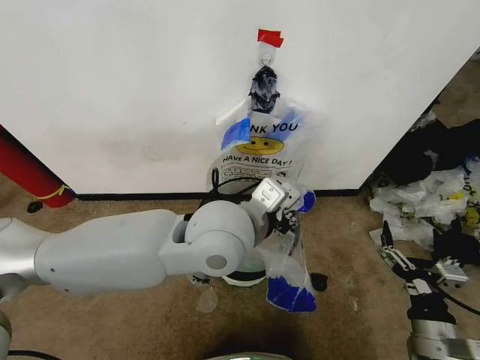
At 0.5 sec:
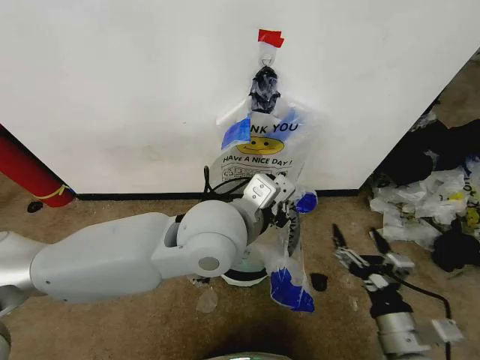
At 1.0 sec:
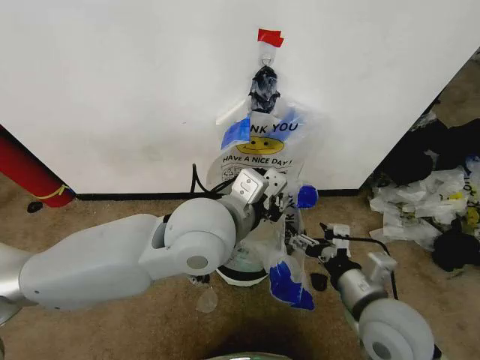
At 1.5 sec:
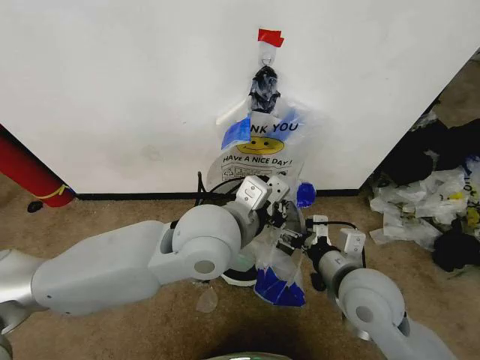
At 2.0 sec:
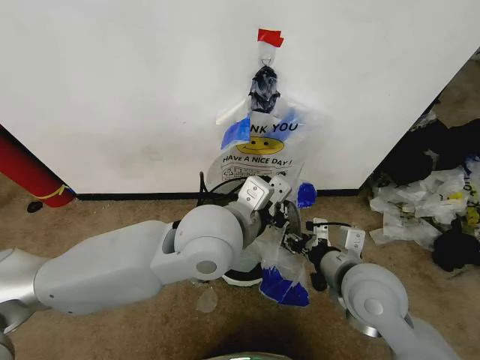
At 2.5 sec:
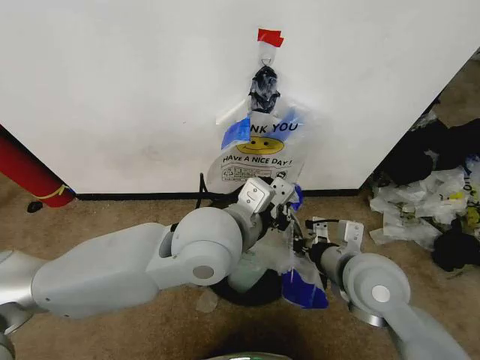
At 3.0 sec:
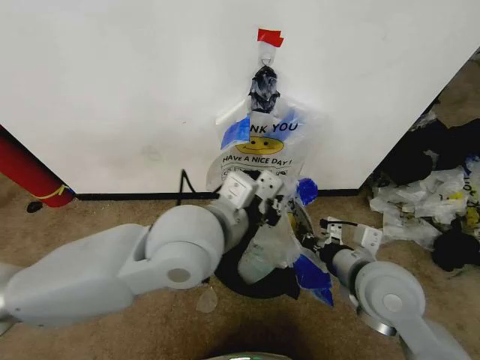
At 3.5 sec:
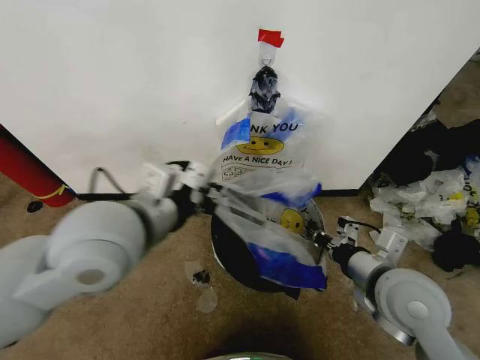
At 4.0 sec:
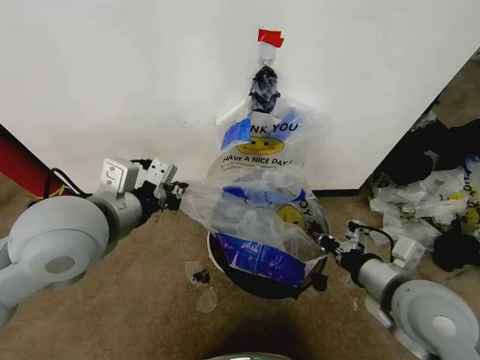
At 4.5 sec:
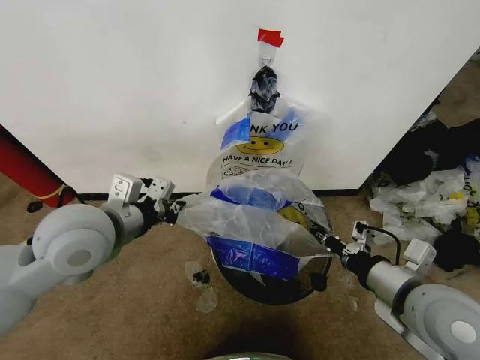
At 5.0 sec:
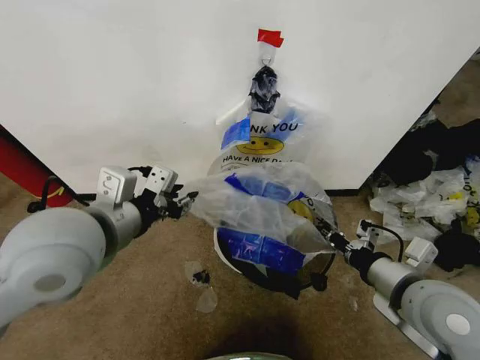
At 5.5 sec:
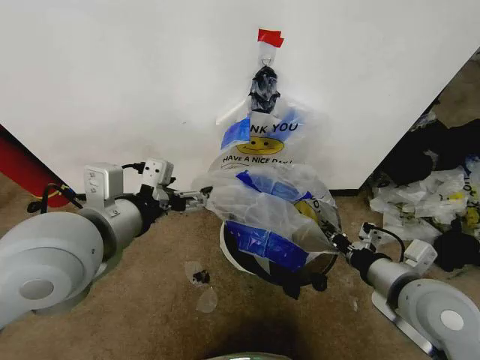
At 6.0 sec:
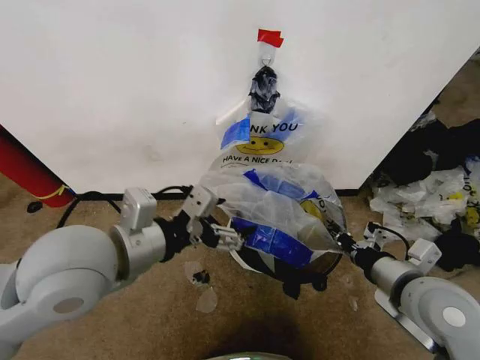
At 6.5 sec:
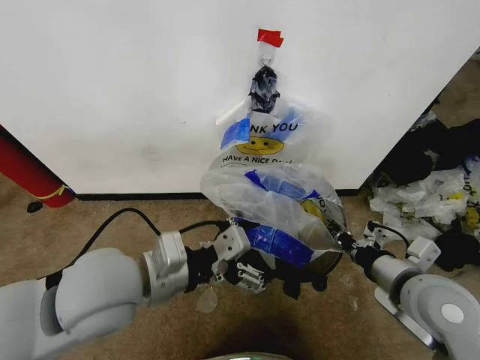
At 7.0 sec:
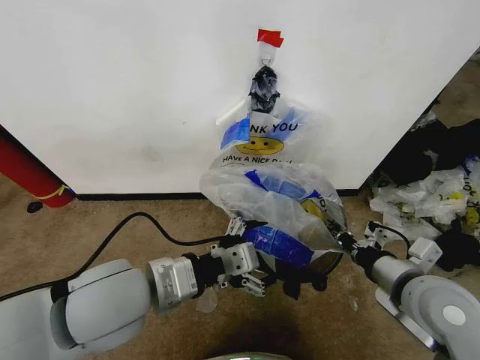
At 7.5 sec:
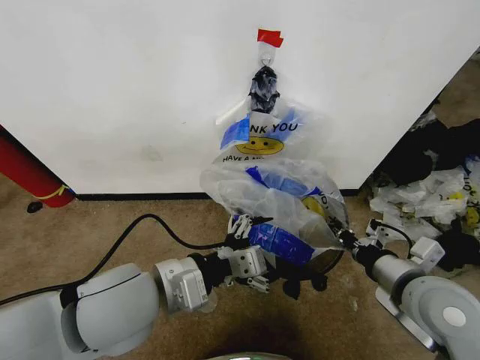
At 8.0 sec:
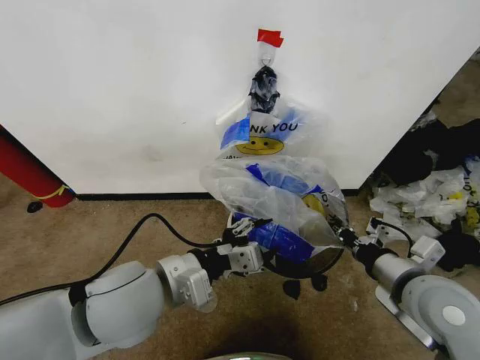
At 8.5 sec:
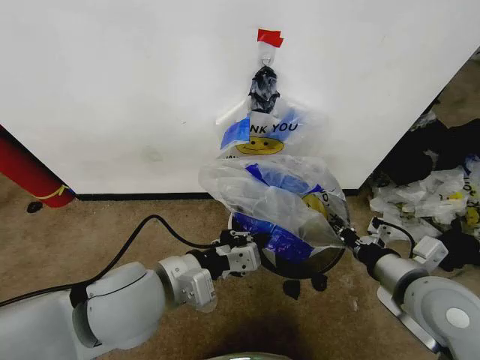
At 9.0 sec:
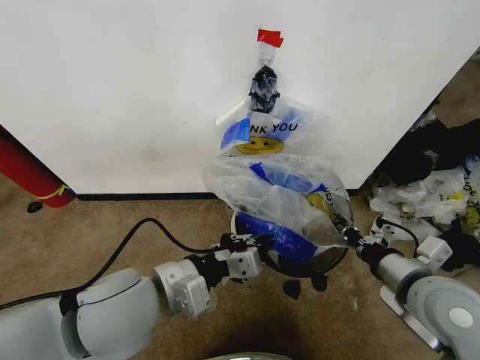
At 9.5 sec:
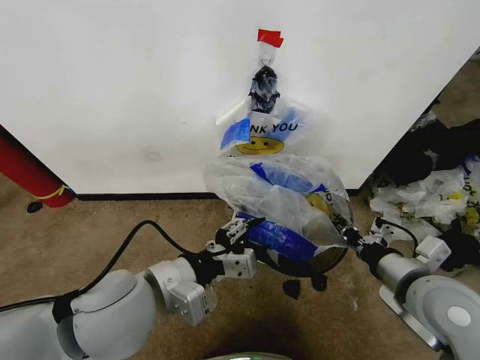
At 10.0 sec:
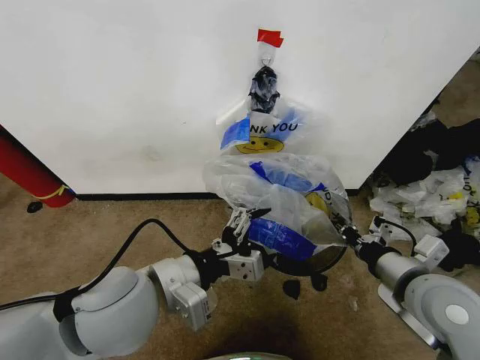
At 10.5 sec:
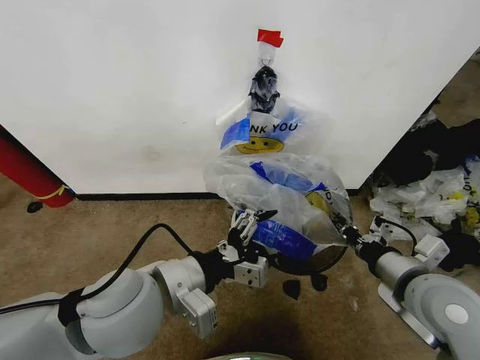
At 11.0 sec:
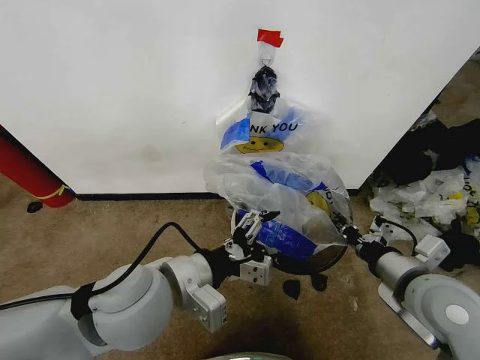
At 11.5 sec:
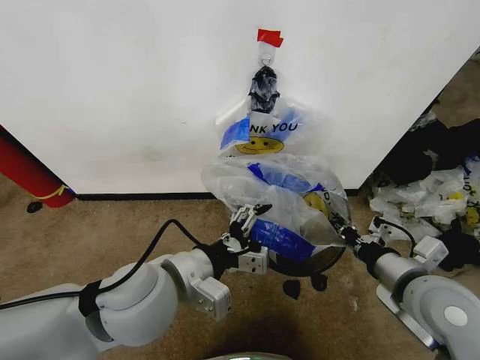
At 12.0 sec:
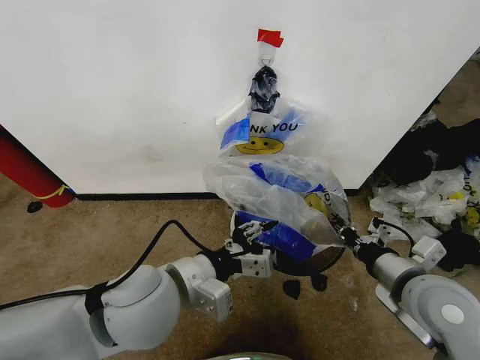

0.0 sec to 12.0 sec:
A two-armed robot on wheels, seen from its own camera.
Task of the whole recording: Pick up the garbage bag from the wall and place it over the trash bin.
0.0 sec to 2.0 sec: The right gripper goes about 20 cm forward, to the left and upward, and closes.
2.0 sec to 4.0 sec: The left gripper travels to the left by approximately 15 cm, while the right gripper travels to the right by approximately 5 cm, and closes up.
4.0 sec to 6.0 sec: The left gripper opens.
6.0 sec to 8.0 sec: The left gripper goes some 10 cm downward, and closes its fingers.
8.0 sec to 10.0 sec: The left gripper opens.
10.0 sec to 12.0 sec: The left gripper closes up.

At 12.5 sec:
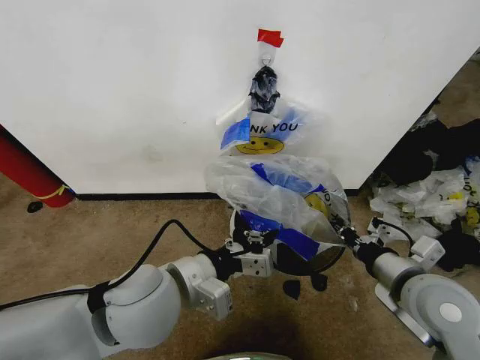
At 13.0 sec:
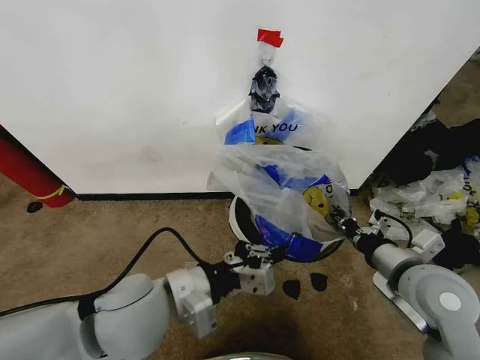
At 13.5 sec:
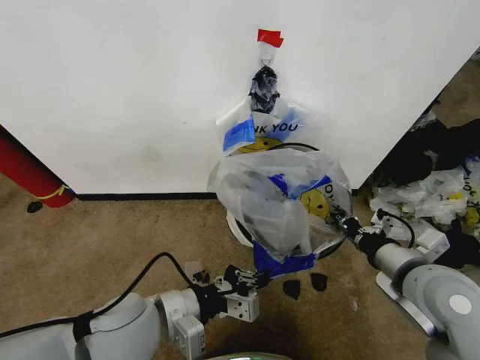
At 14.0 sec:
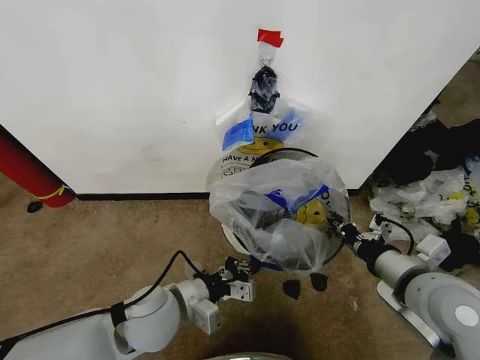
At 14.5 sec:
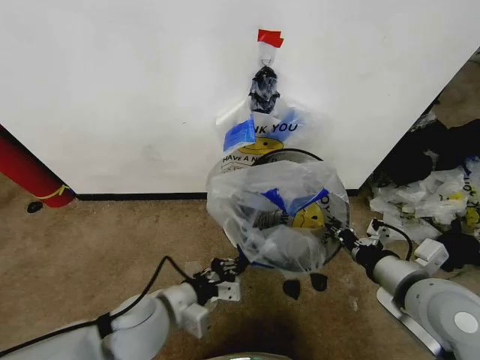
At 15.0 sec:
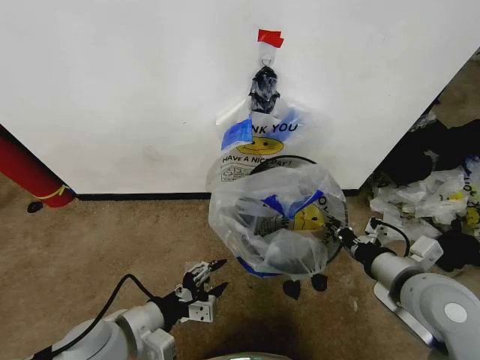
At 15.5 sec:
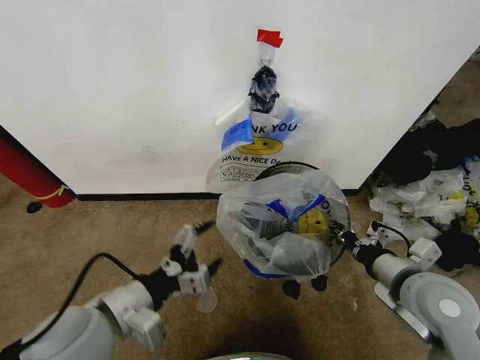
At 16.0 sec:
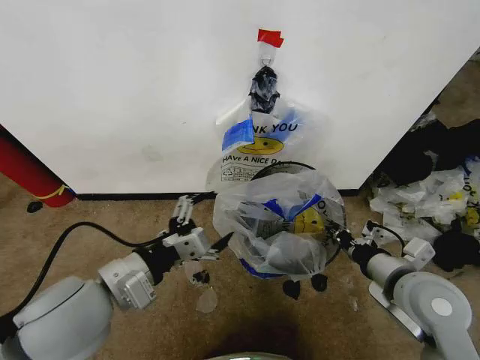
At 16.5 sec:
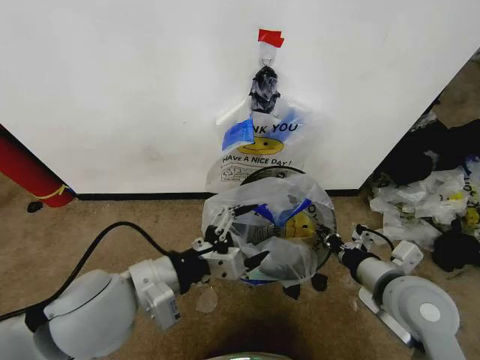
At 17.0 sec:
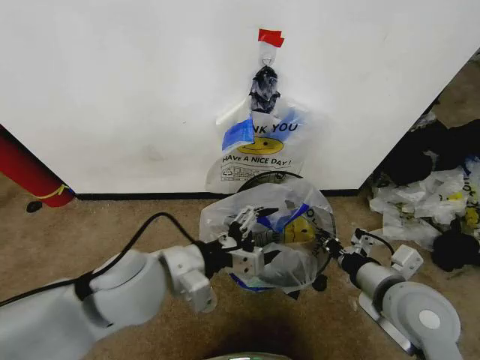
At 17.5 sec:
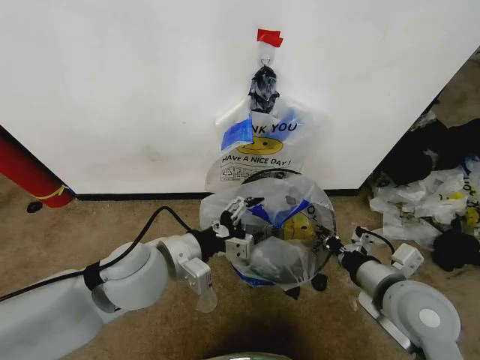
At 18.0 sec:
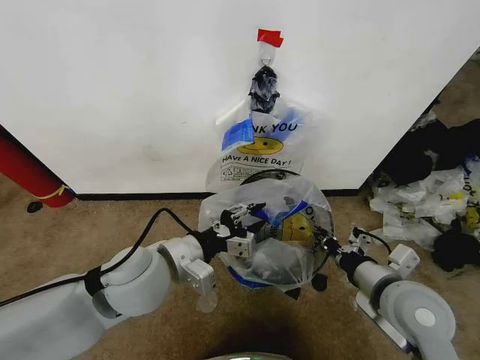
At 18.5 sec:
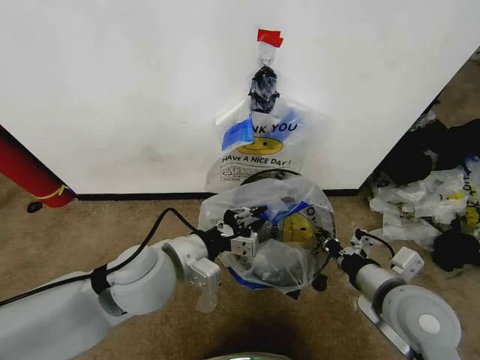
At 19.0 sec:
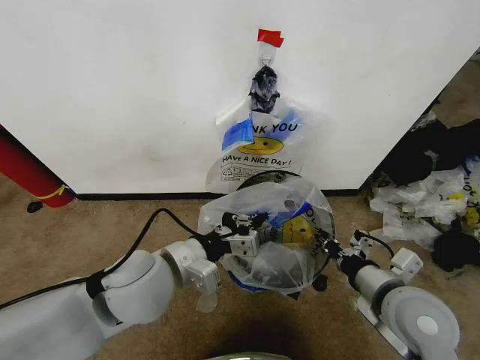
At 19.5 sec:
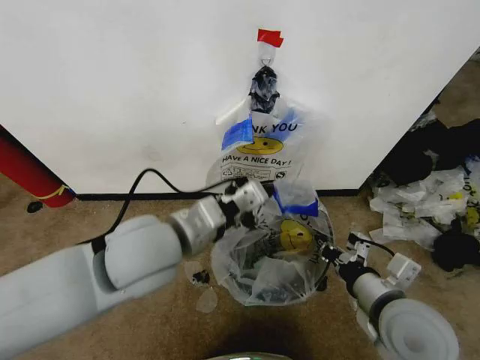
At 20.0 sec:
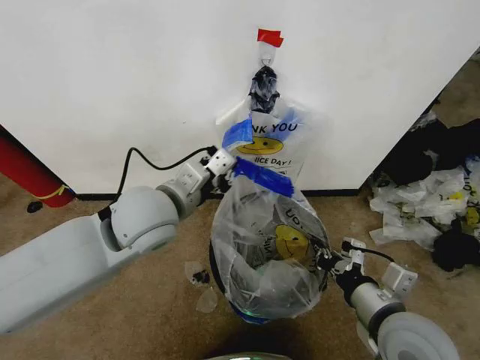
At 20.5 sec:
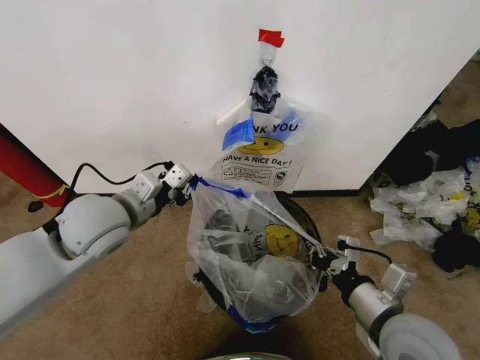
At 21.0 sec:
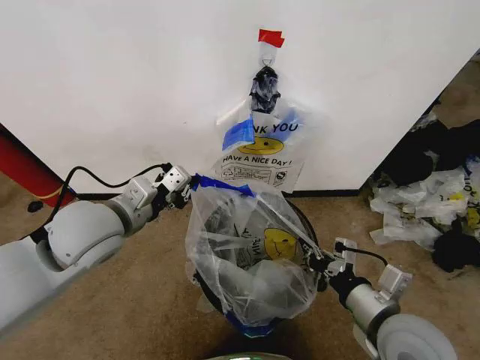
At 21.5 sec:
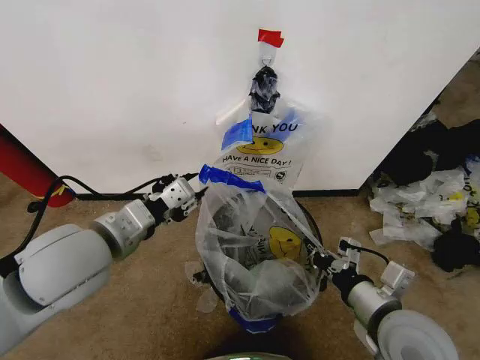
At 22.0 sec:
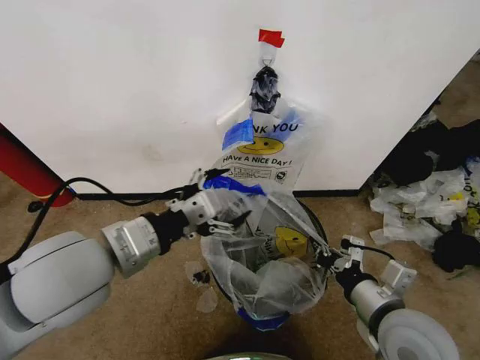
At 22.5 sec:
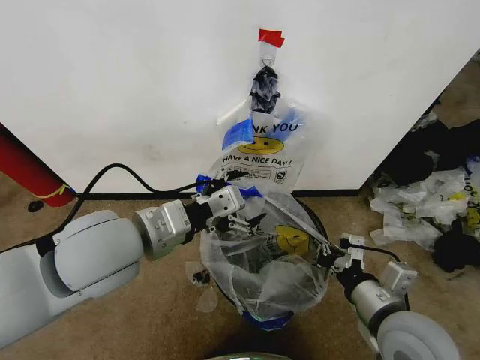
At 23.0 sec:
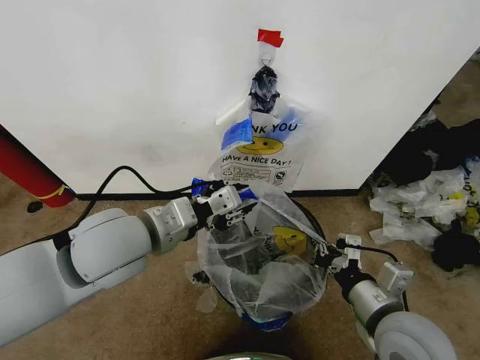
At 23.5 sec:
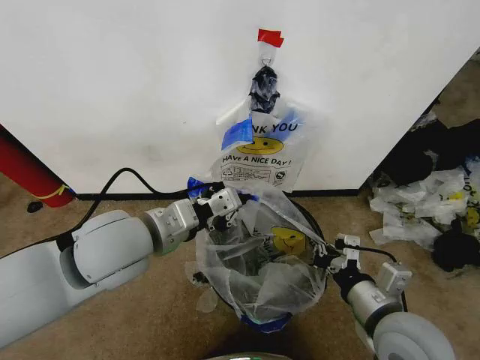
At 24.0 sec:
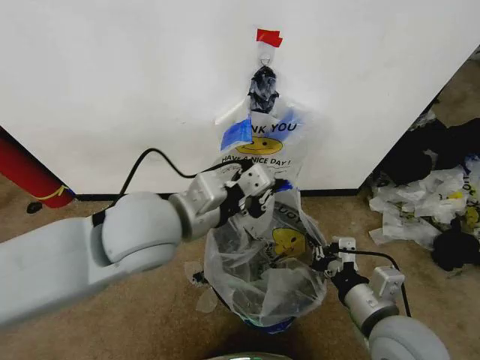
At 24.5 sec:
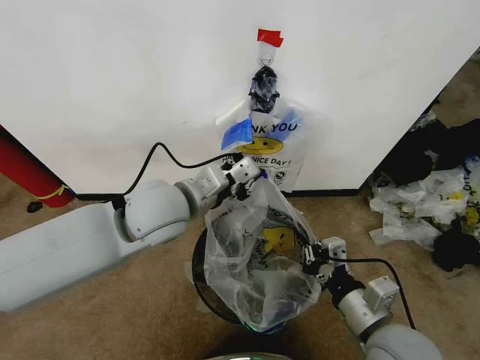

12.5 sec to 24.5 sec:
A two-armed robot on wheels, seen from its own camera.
Task of the whole recording: Pick up the garbage bag from the wall and place it over the trash bin.
12.5 sec to 14.5 sec: The left gripper goes roughly 10 cm downward.
14.5 sec to 16.5 sec: The left gripper goes approximately 10 cm upward, and opens its fingers.
16.5 sec to 18.5 sec: The left gripper shifts some 5 cm forward, and closes up.
18.5 sec to 20.5 sec: The left gripper is displaced to the left and forward by roughly 10 cm.
20.5 sec to 22.5 sec: The left gripper is displaced backward and to the right by some 10 cm, and opens.
22.5 sec to 24.5 sec: The left gripper shifts roughly 10 cm forward, and closes.

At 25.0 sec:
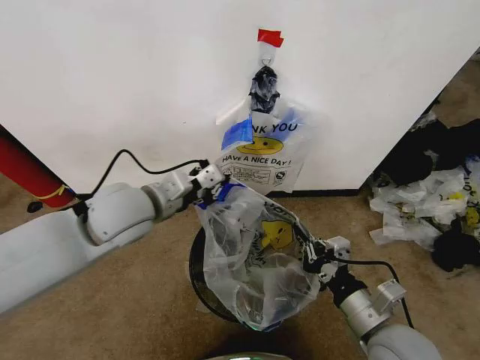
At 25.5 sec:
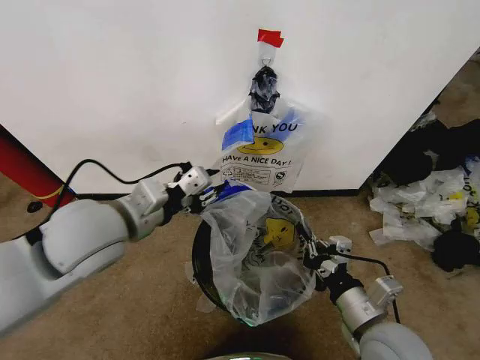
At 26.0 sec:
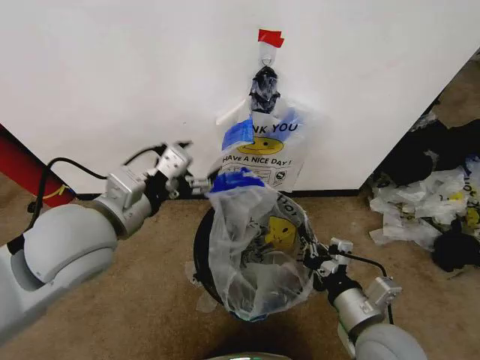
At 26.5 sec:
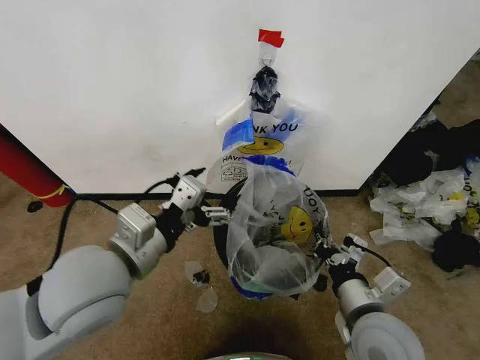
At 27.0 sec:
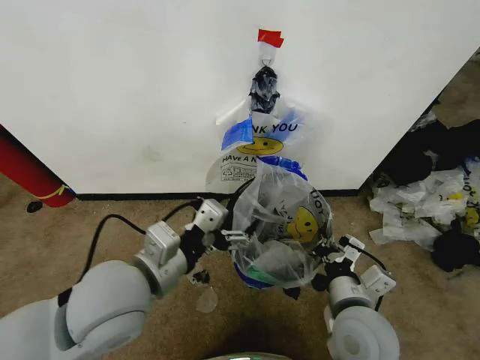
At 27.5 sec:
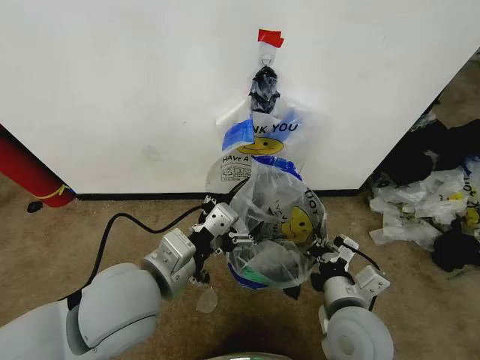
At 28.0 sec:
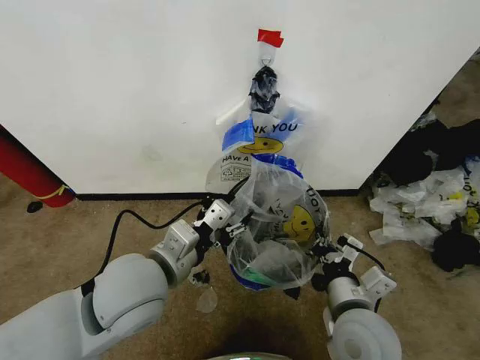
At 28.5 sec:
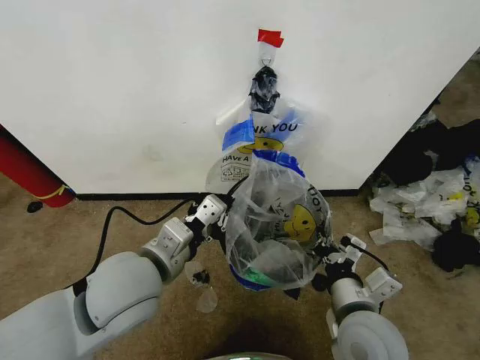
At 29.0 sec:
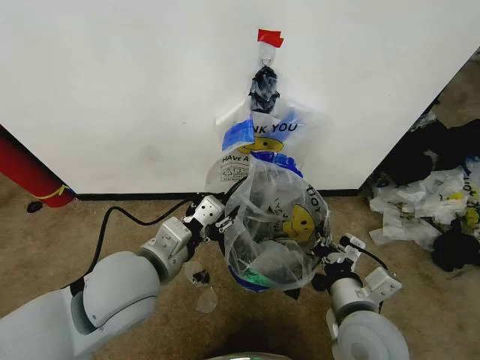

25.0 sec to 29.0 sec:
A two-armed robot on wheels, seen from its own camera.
Task of the whole recording: Pick up the garbage bag from the wall and place it over the trash bin.
25.0 sec to 27.0 sec: The left gripper travels backward by approximately 15 cm, and opens, while the right gripper shifts approximately 5 cm to the left.
27.0 sec to 29.0 sec: The left gripper closes.
